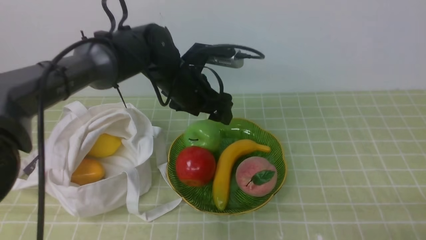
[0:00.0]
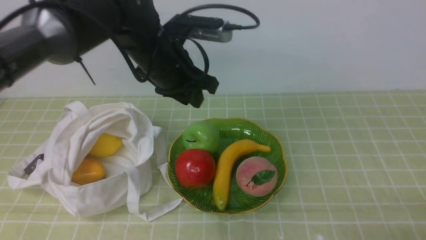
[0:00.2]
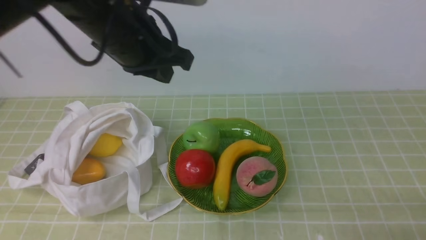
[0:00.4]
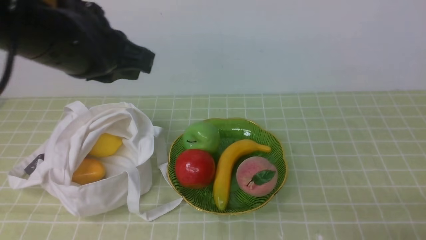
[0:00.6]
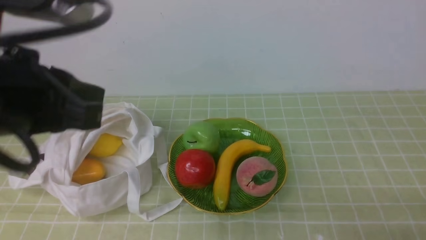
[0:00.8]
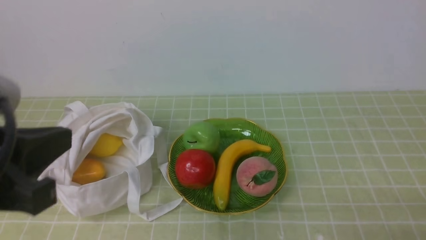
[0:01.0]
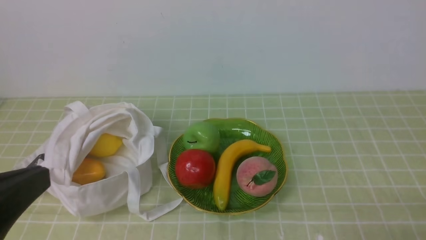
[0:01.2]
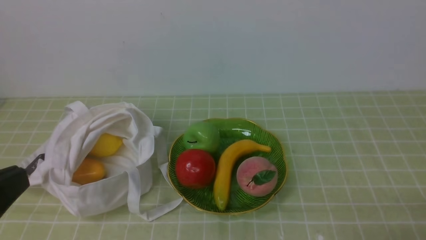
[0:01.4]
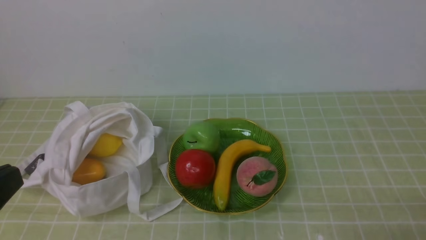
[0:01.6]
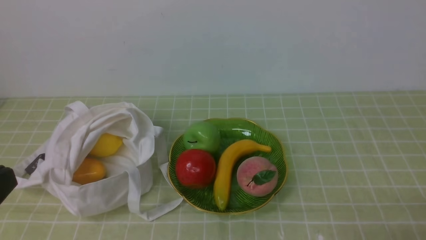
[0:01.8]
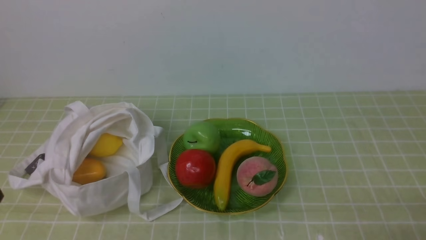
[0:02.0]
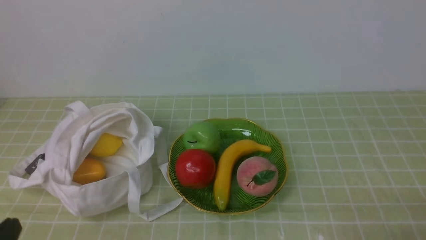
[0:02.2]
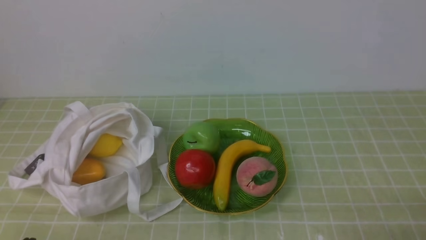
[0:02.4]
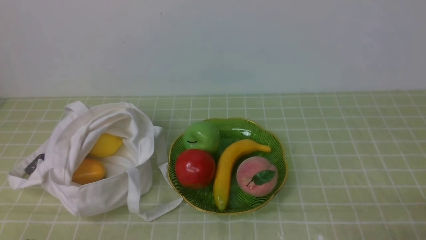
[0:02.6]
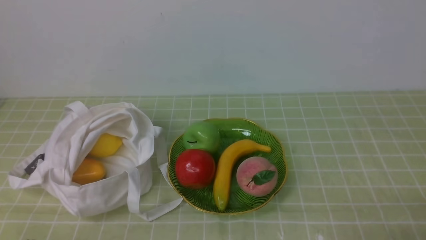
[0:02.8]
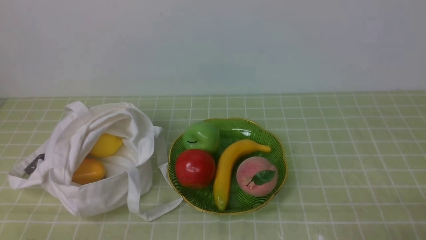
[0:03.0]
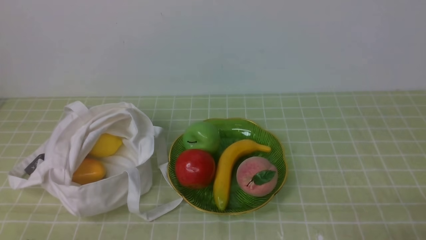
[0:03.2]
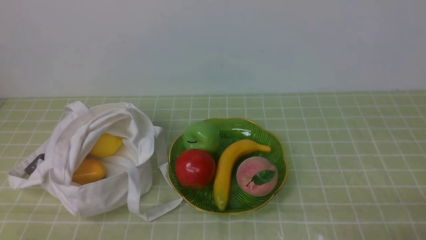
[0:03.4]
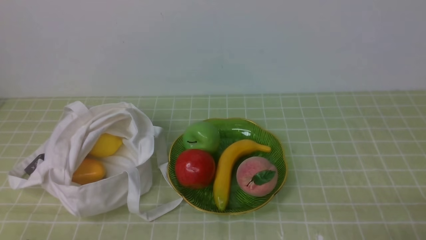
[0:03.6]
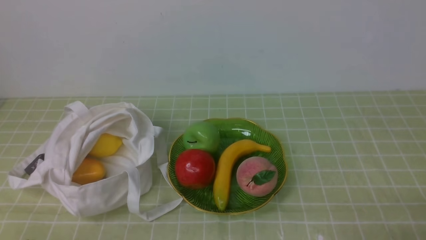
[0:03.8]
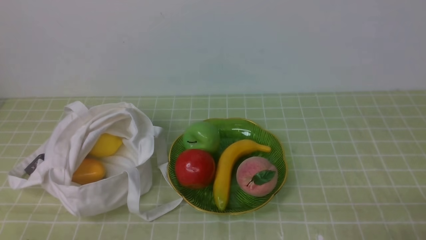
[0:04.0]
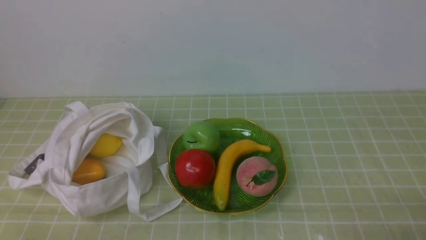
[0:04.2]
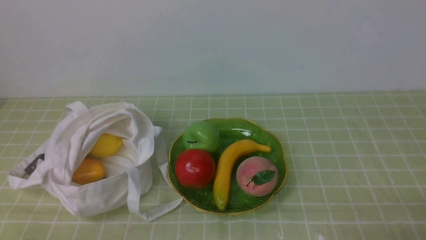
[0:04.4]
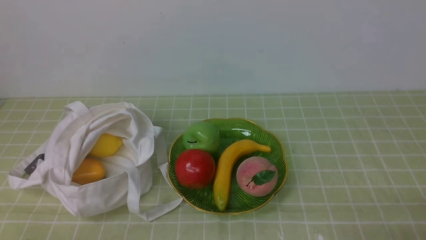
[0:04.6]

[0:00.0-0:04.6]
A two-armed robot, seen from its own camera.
0:00.0 to 0:01.6: The left gripper is displaced backward and to the left by roughly 40 cm, and closes its fingers.
0:01.6 to 0:03.0: The left gripper heads downward, covering about 15 cm.
0:03.0 to 0:04.6: Neither gripper changes place.
